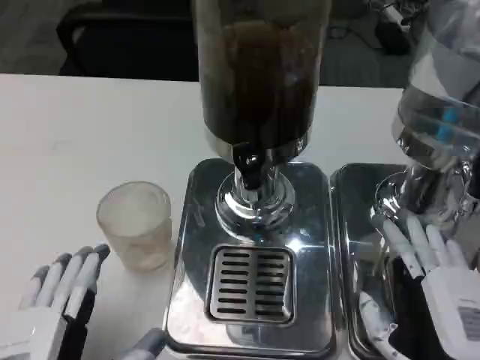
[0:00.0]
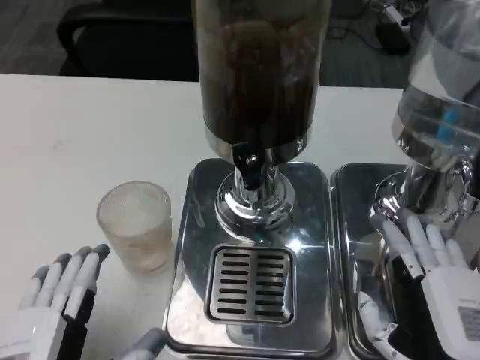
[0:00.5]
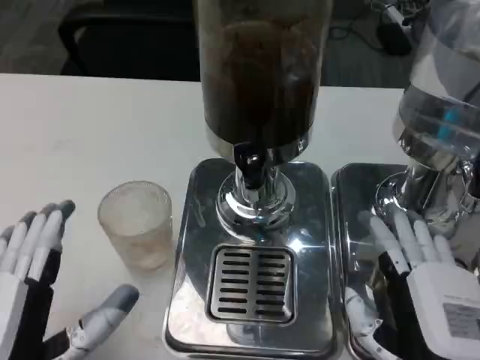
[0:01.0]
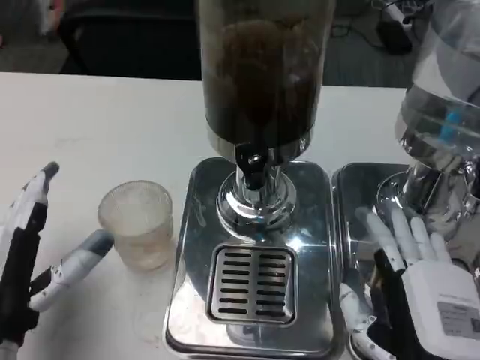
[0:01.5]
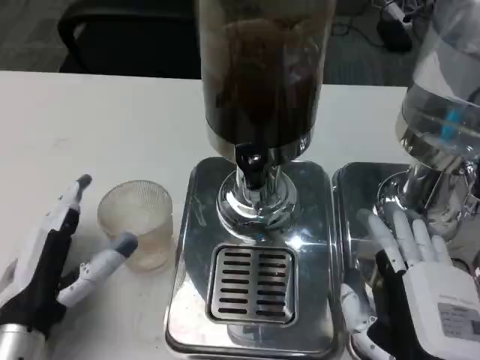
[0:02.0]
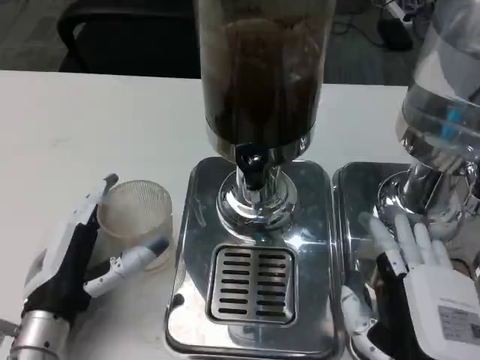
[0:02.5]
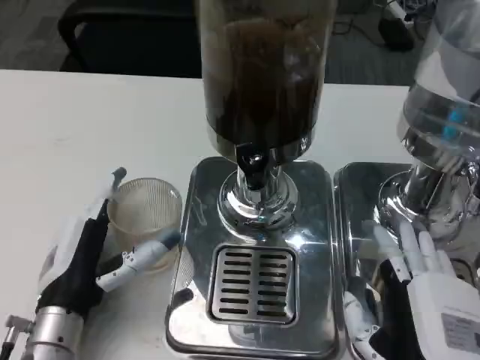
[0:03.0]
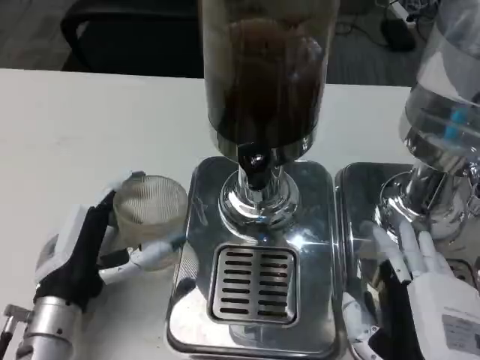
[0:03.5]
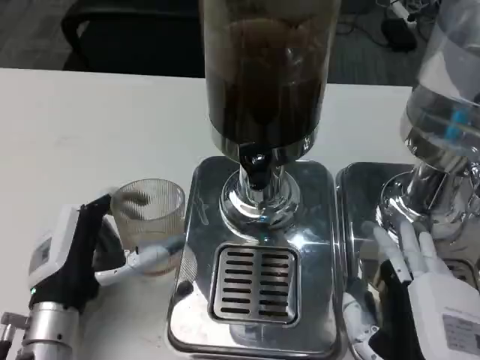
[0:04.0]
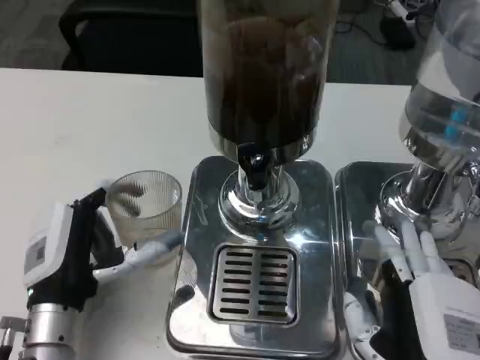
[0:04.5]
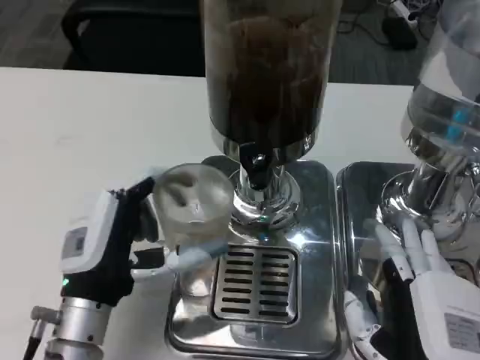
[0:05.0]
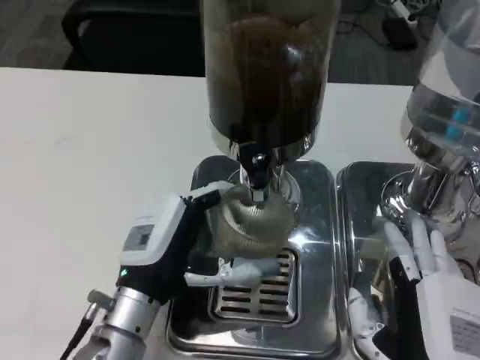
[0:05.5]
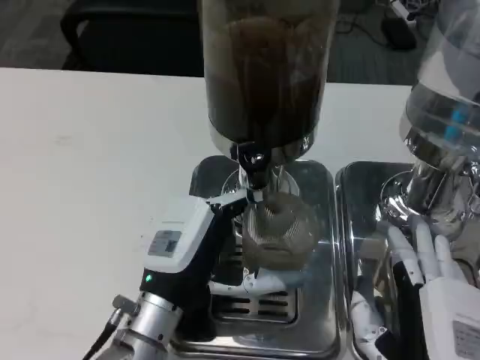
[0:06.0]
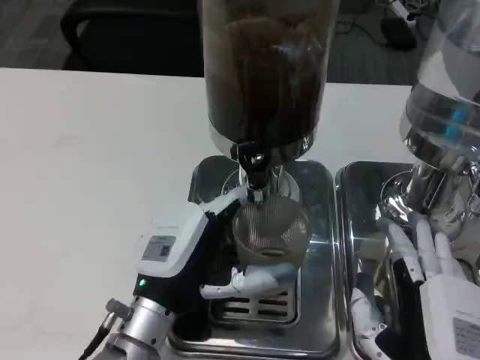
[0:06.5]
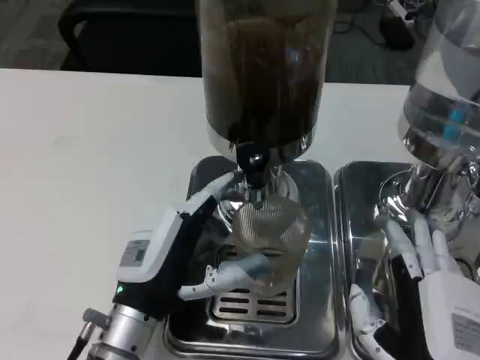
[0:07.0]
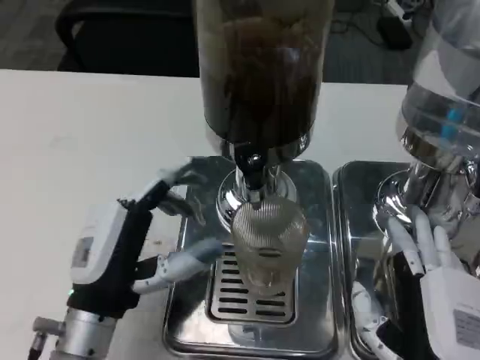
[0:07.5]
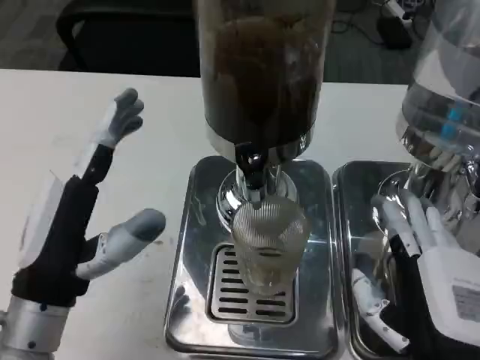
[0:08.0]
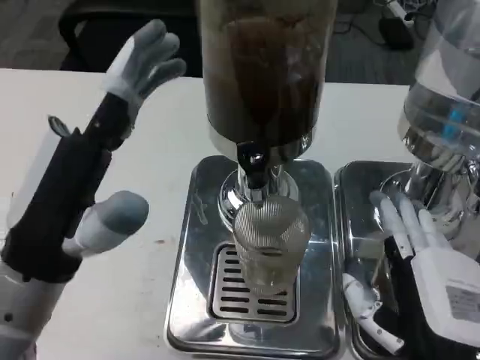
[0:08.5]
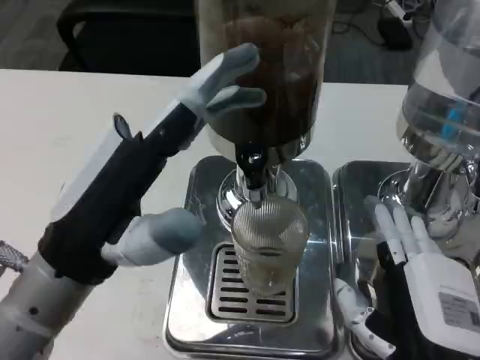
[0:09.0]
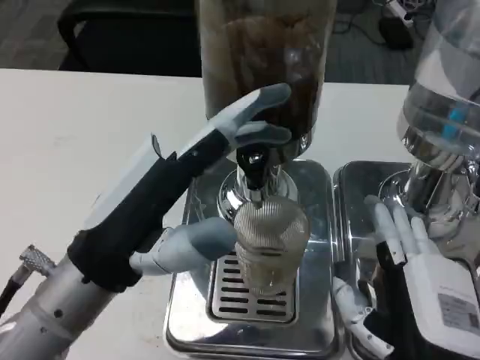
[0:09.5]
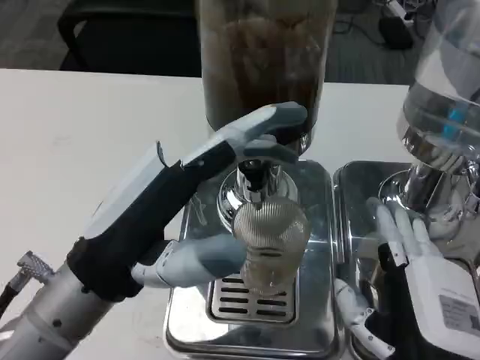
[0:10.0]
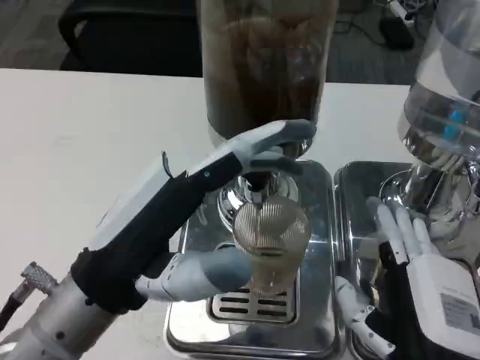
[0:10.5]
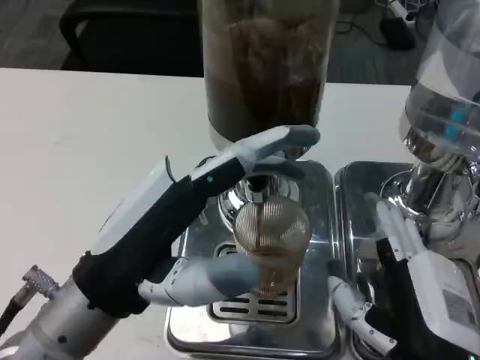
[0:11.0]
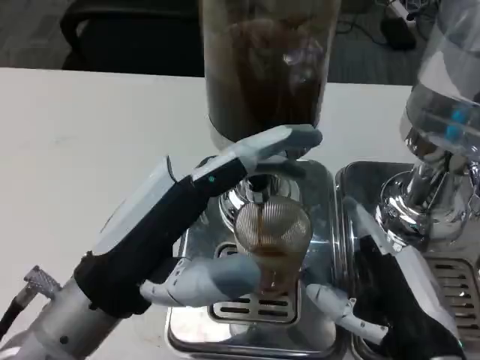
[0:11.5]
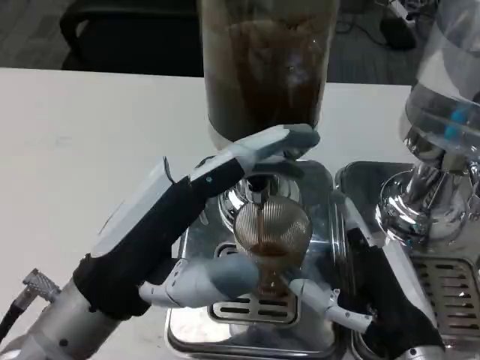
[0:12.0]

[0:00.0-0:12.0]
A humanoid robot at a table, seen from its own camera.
Task of the whole recording: Grasp the cup under the faucet to collect the drink, then remove the cup.
0:00.0 to 0:02.0: The left hand shifts some 10 cm forward.
0:04.0 to 0:06.0: The left hand shifts about 10 cm to the right.
0:06.0 to 0:08.0: The left hand heads to the left and upward, covering approximately 10 cm.
0:08.0 to 0:10.0: The left hand is displaced upward by roughly 5 cm.

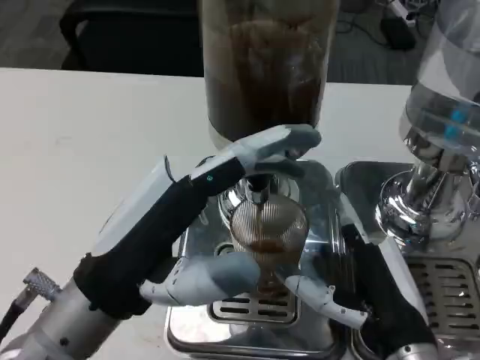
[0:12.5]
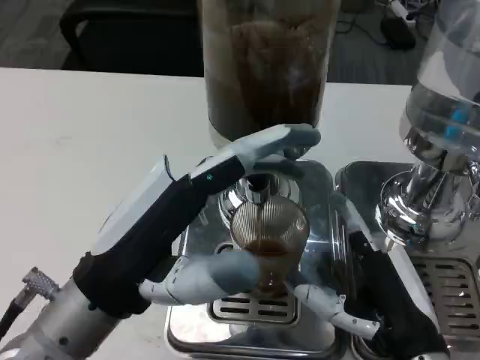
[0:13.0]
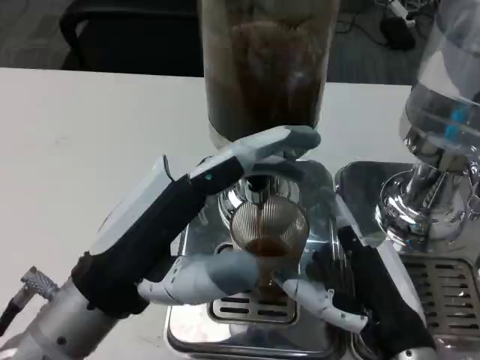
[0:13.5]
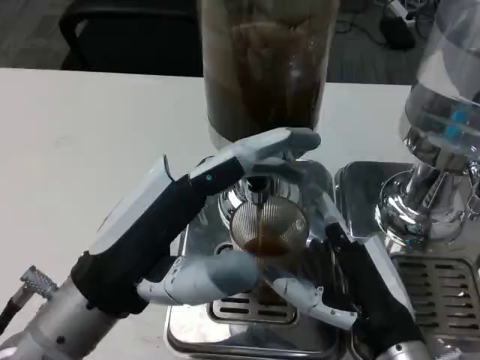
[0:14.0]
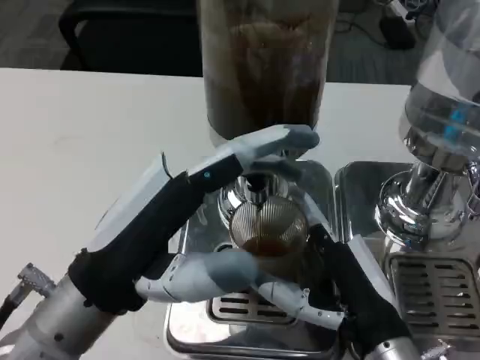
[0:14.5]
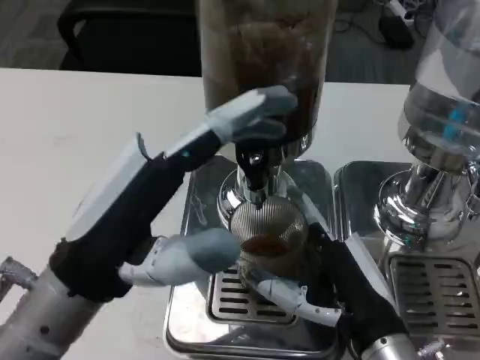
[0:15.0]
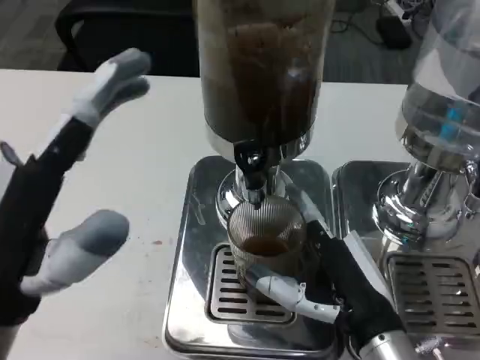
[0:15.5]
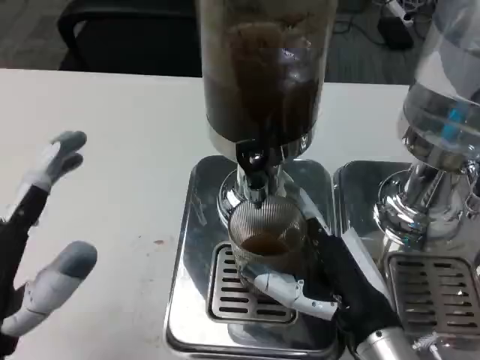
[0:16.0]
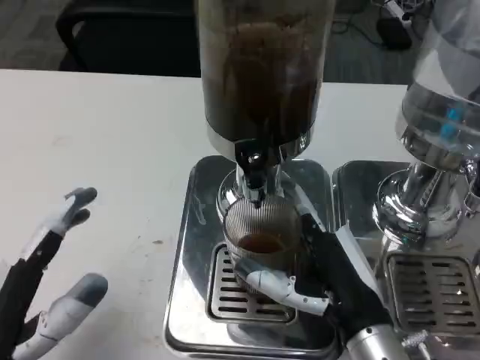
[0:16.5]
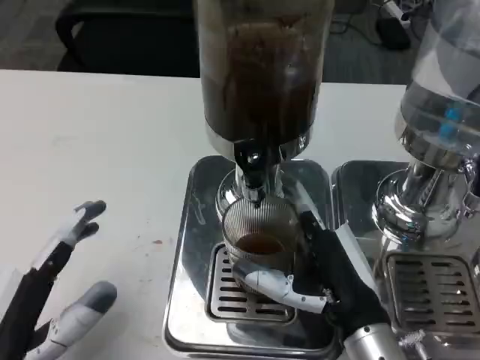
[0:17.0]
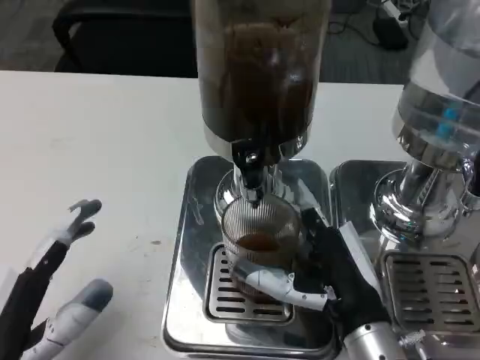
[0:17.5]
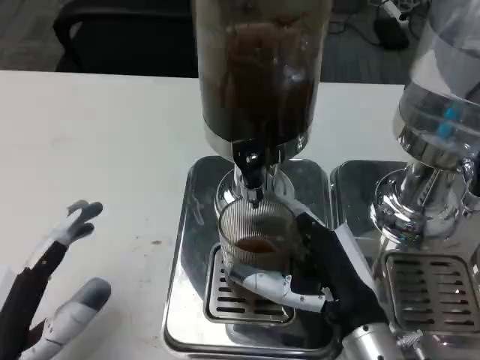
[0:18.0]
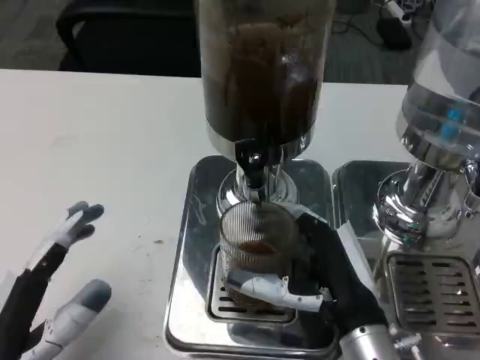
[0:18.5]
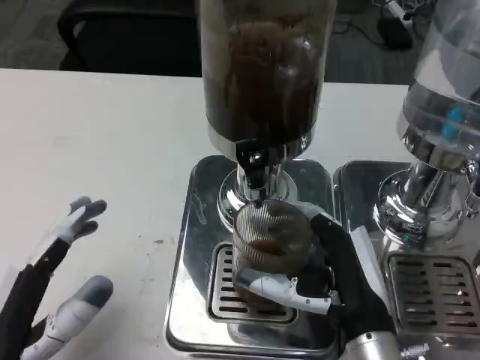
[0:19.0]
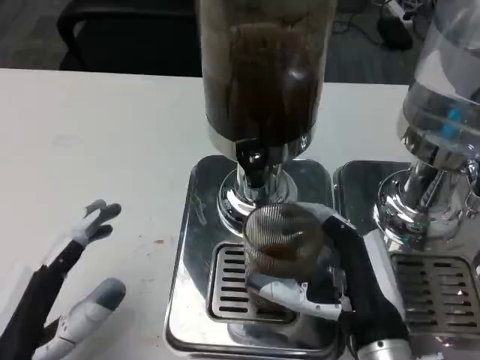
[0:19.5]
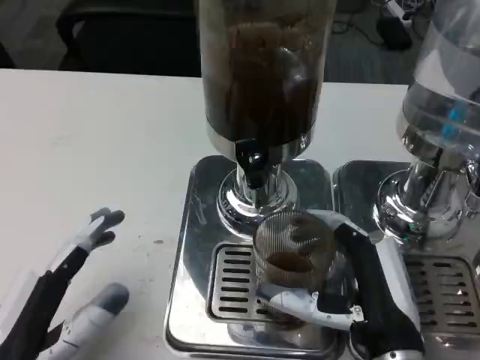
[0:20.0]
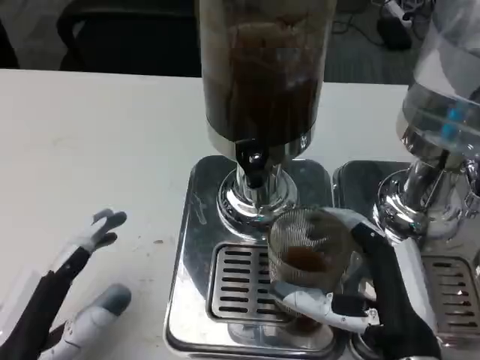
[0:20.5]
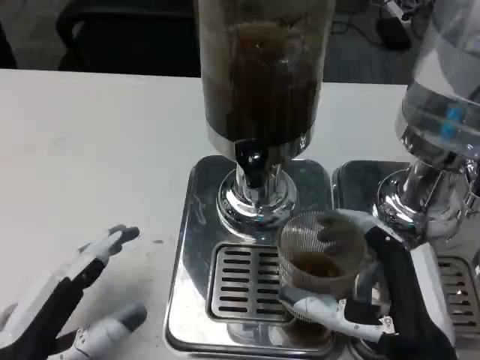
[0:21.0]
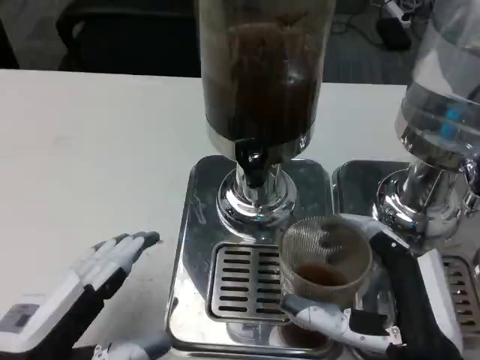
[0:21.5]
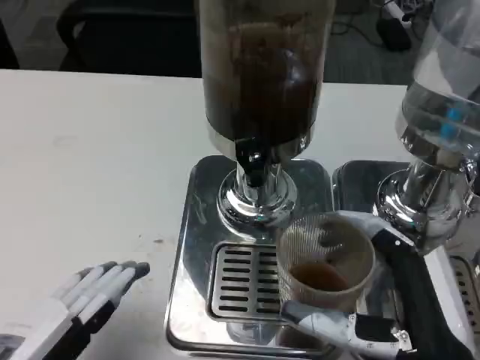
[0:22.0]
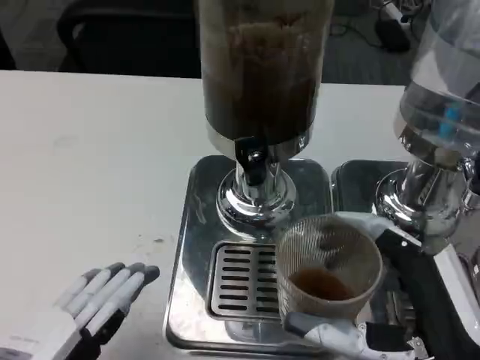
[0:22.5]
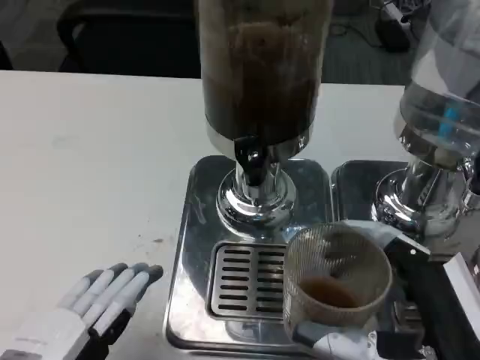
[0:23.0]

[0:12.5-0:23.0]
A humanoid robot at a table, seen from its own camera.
Task of the whole recording: Grasp the cup under the faucet to collect the drink, then remove the cup.
0:12.5 to 0:14.5: The hands move only a little.
0:14.5 to 0:16.5: The left hand travels to the left, downward and backward by roughly 15 cm.
0:16.5 to 0:19.0: The hands stay close to where they were, moving slightly.
0:19.0 to 0:21.0: The right hand moves about 5 cm.
0:21.0 to 0:23.0: The right hand ends up roughly 5 cm from where it was. Meanwhile the left hand shifts about 5 cm backward.

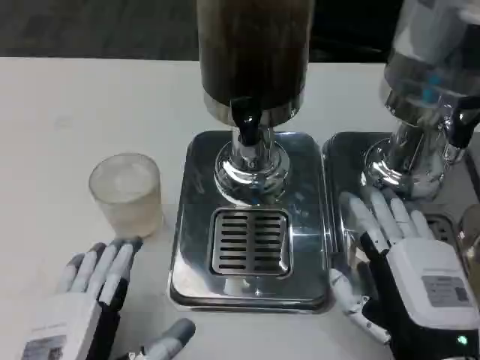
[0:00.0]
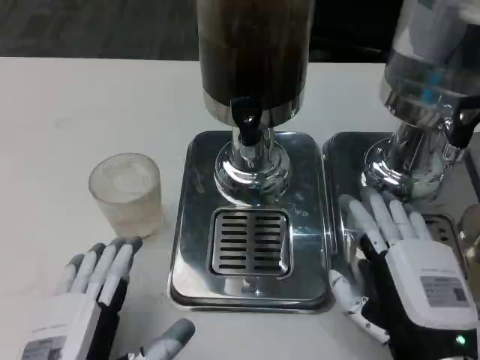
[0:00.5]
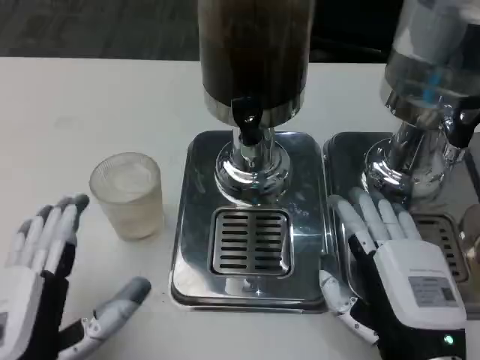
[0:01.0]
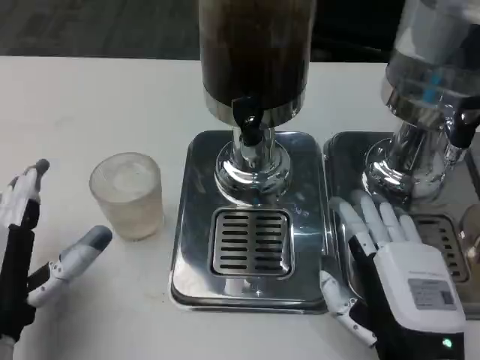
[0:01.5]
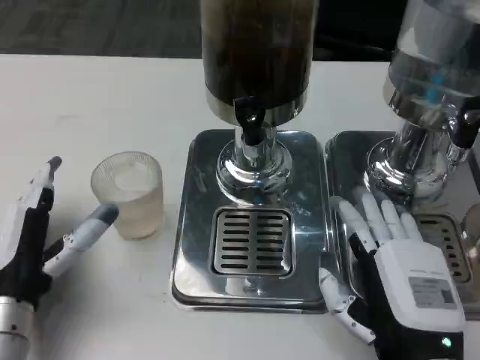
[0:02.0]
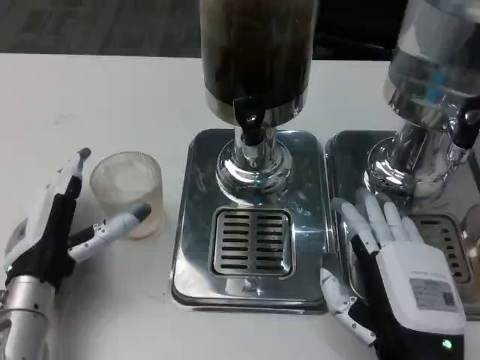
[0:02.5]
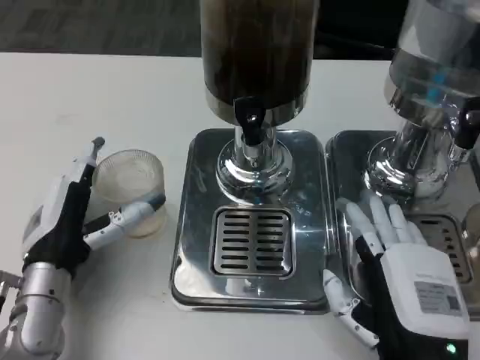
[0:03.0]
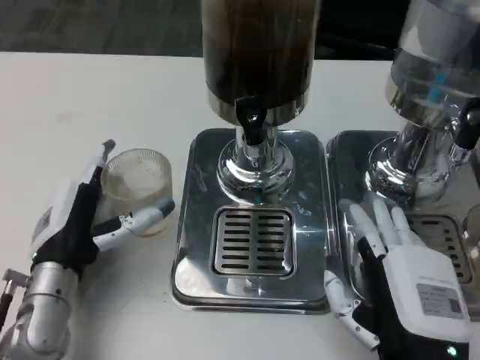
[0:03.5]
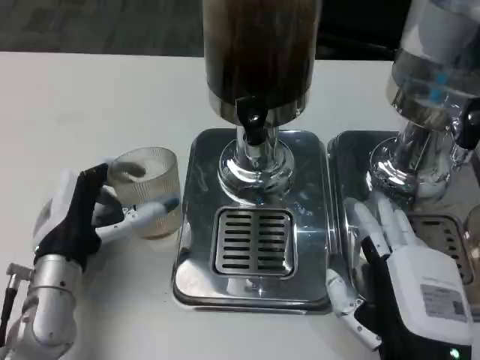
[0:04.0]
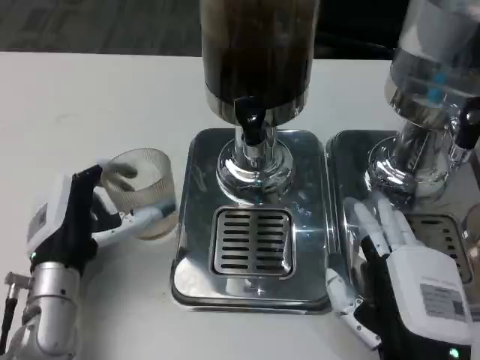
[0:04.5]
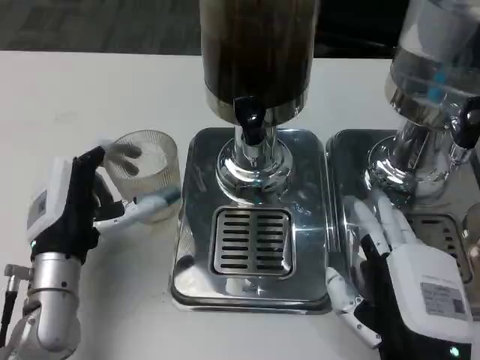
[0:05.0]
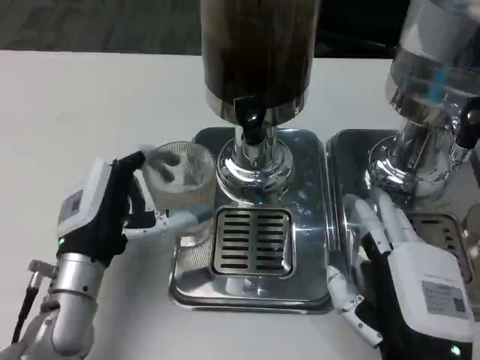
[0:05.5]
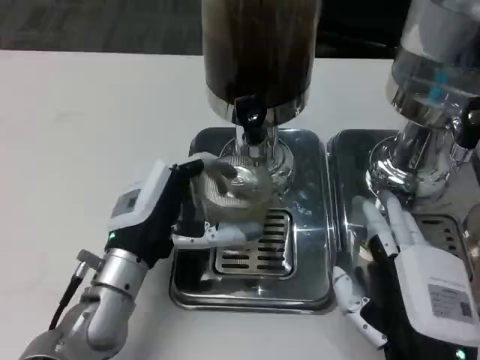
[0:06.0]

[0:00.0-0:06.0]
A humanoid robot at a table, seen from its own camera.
Task of the whole recording: Grasp the cup under the faucet to collect the drink, then remove the cup.
0:00.0 to 0:02.0: The left hand is displaced forward and to the left by approximately 15 cm.
0:02.0 to 0:04.0: The left hand ends up approximately 5 cm from where it was.
0:04.0 to 0:06.0: The left hand is displaced to the right by some 5 cm.
